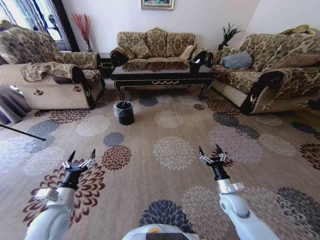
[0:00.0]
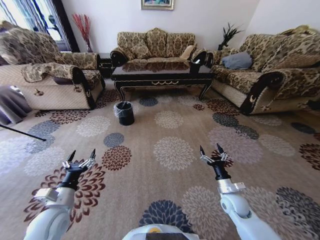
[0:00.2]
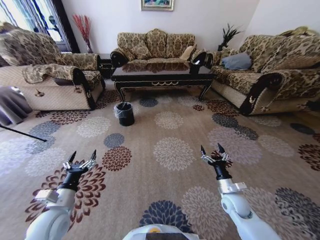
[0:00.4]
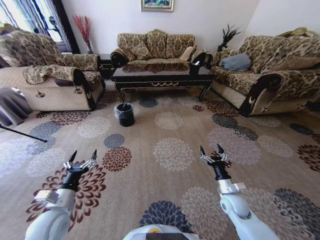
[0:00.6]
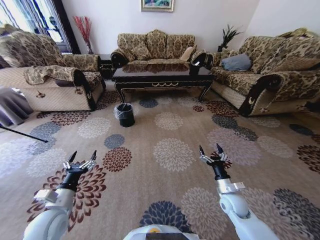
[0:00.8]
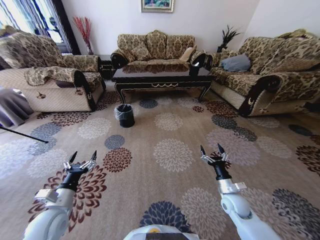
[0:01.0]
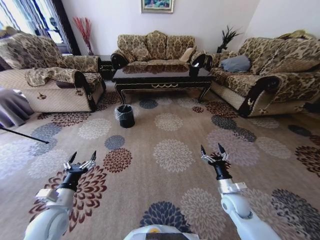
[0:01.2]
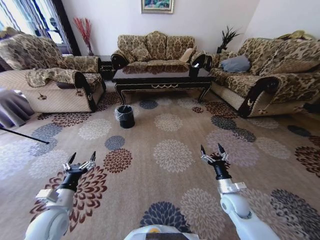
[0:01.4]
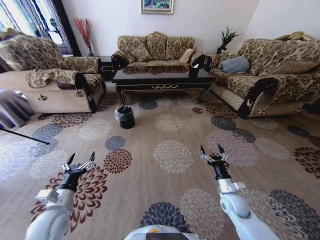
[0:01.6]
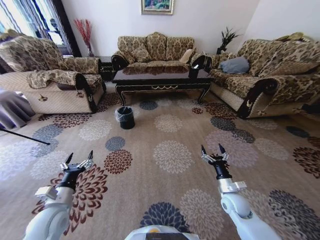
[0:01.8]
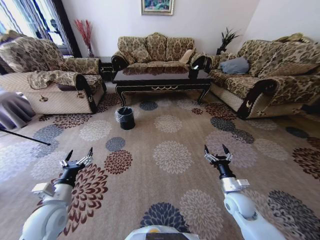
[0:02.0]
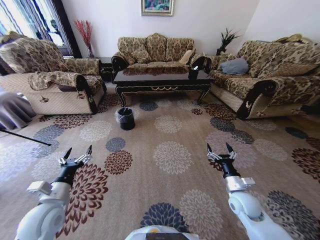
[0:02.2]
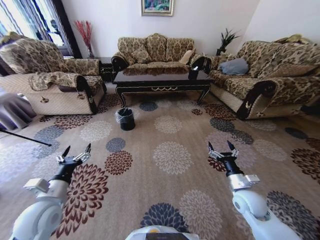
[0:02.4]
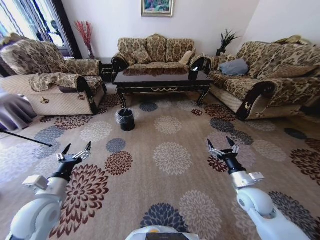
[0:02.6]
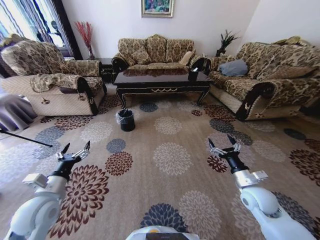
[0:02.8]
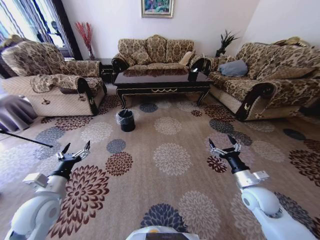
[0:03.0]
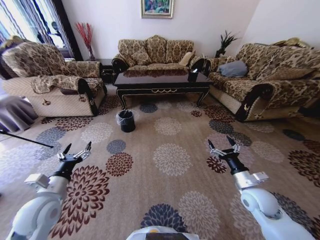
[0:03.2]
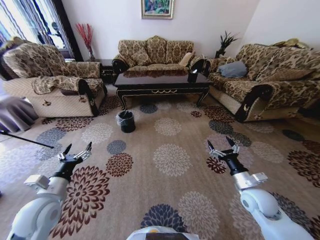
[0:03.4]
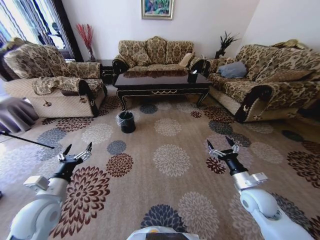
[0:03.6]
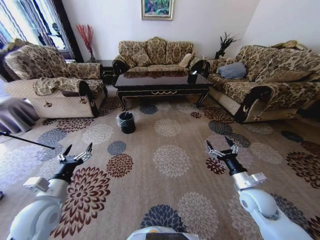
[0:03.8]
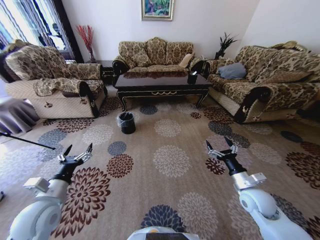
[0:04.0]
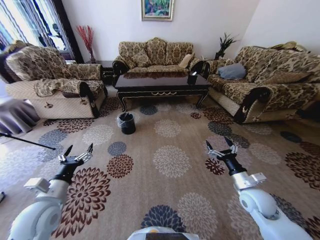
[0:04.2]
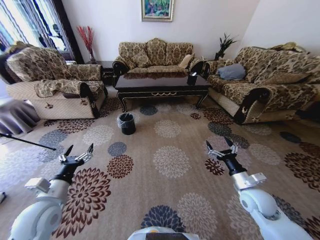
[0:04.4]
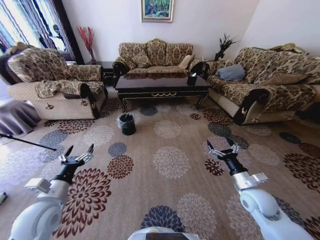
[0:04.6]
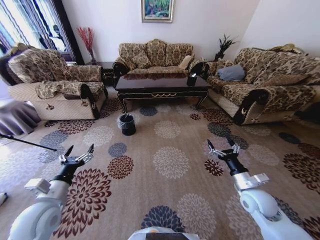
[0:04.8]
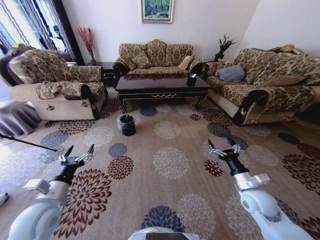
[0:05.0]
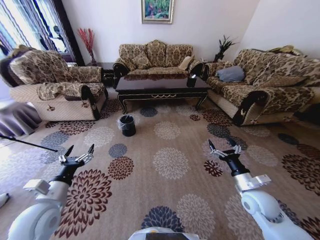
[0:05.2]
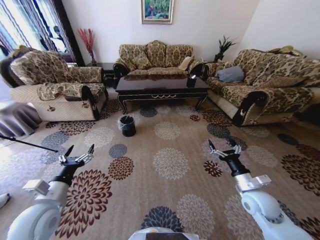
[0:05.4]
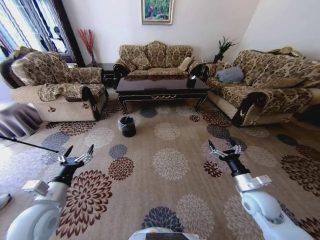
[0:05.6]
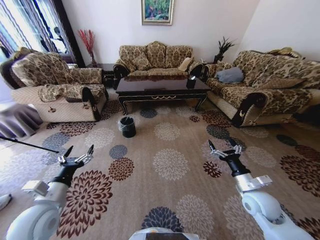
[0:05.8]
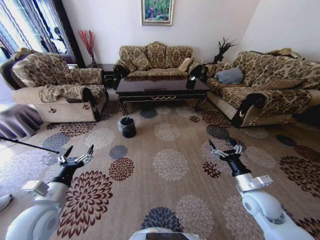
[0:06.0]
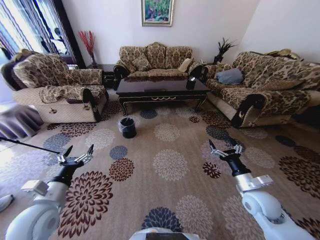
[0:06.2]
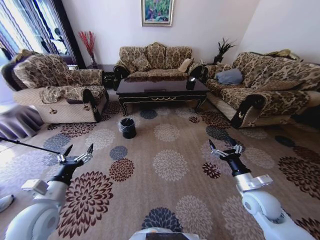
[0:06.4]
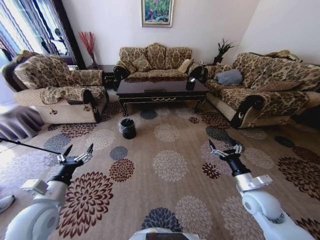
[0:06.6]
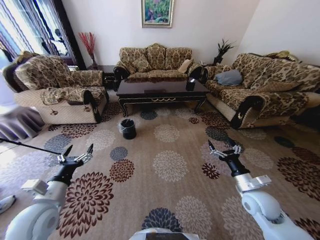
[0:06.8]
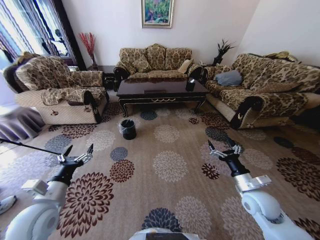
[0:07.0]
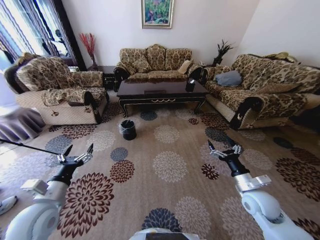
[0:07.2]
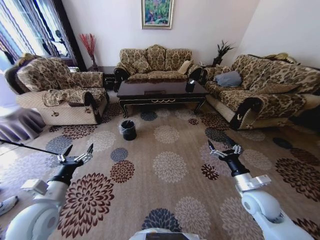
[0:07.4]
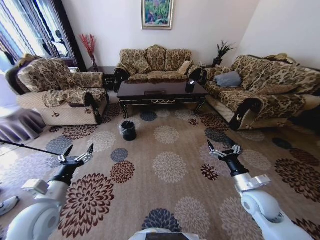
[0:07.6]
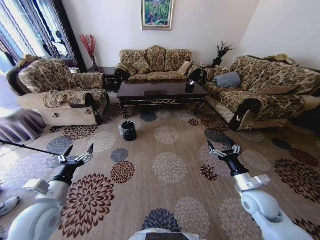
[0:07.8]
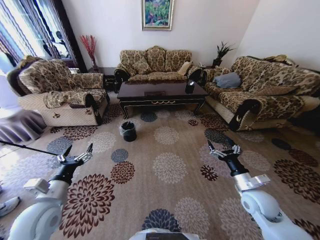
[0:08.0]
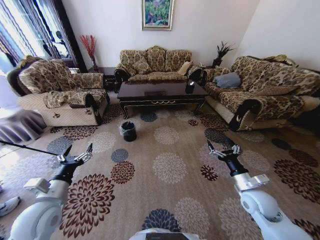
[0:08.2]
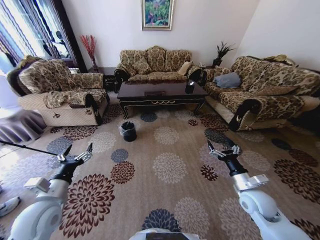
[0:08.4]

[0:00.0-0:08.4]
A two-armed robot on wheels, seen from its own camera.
Task of the whole recording: Move to the front of the table and pick up the trash from the floor, then place it into the trash bin.
0:01.4 to 0:02.8: The two grippers go some 10 cm upward.
0:07.0 to 0:08.4: Neither gripper changes place.
